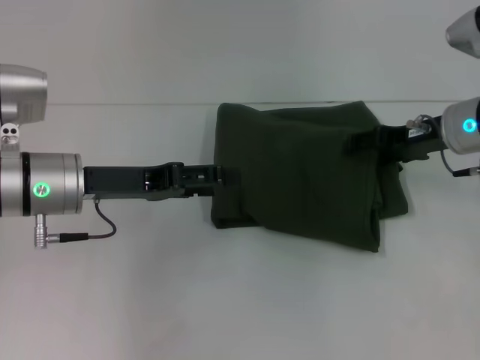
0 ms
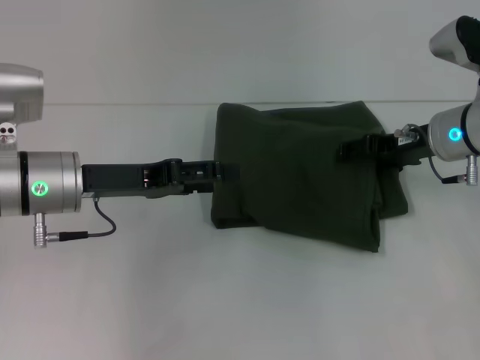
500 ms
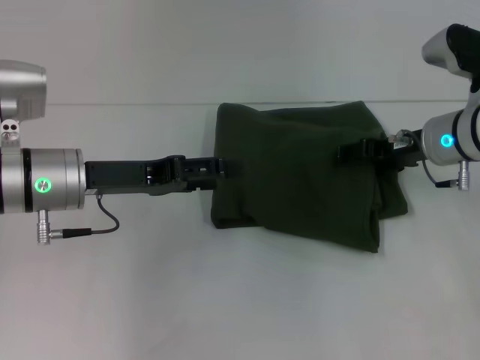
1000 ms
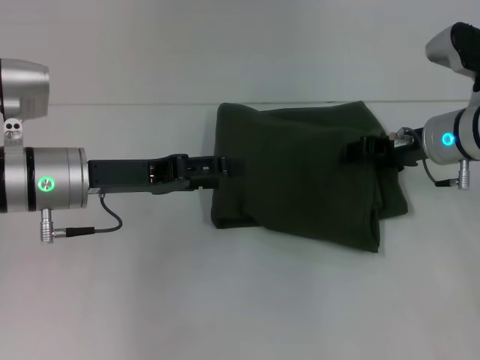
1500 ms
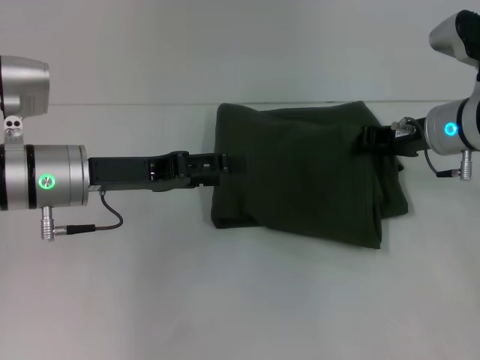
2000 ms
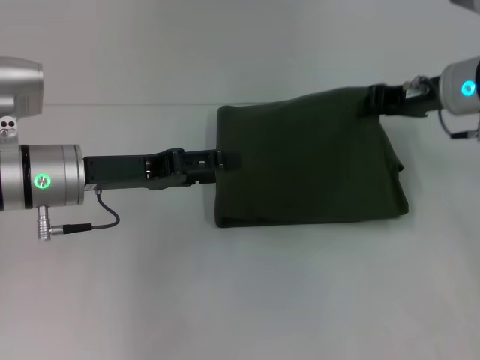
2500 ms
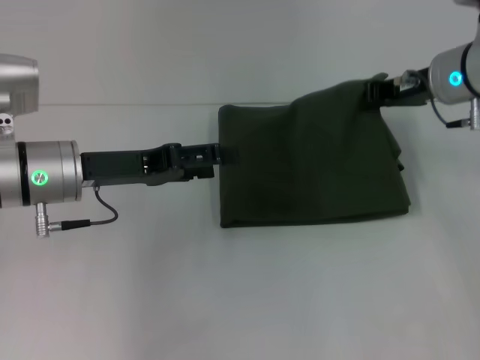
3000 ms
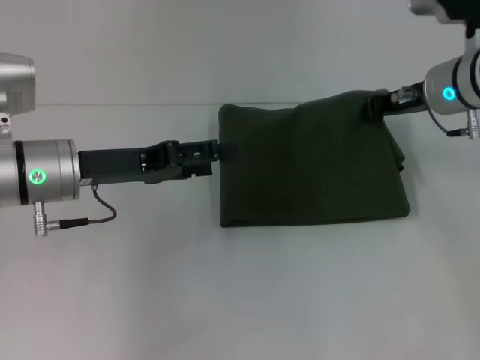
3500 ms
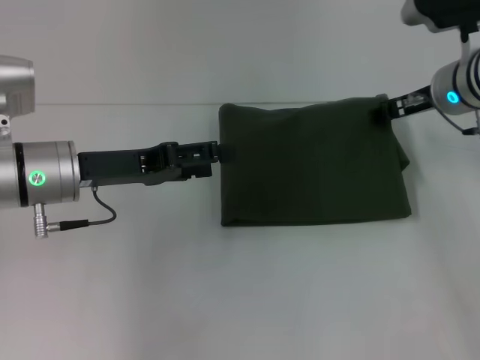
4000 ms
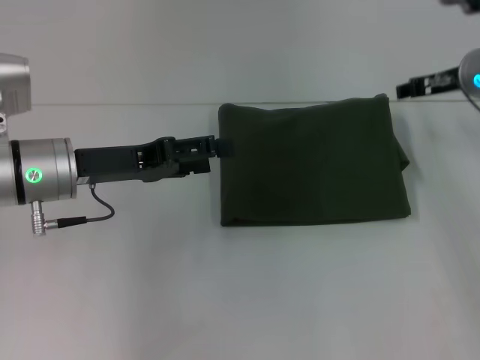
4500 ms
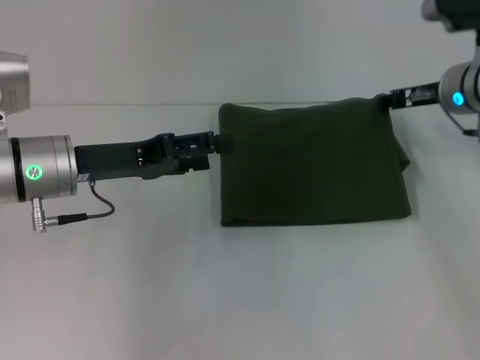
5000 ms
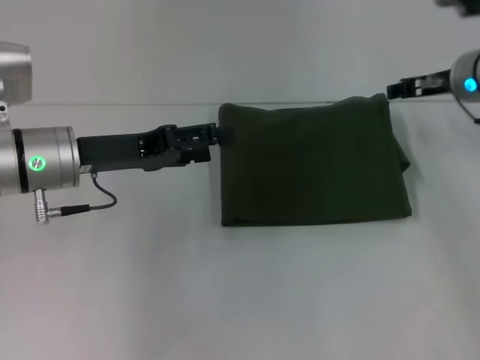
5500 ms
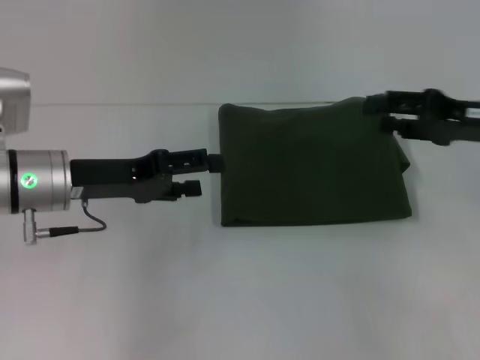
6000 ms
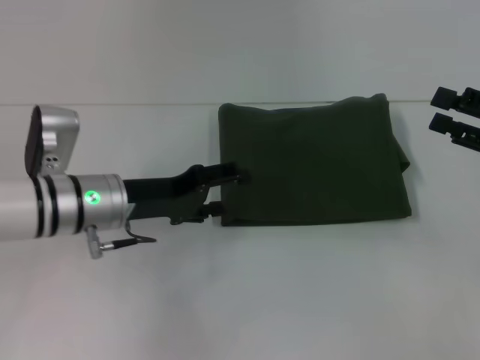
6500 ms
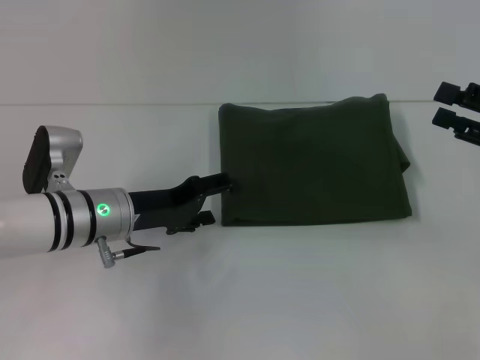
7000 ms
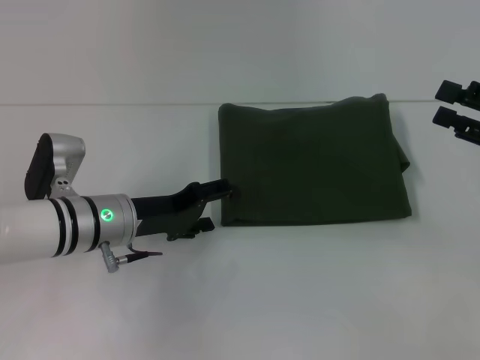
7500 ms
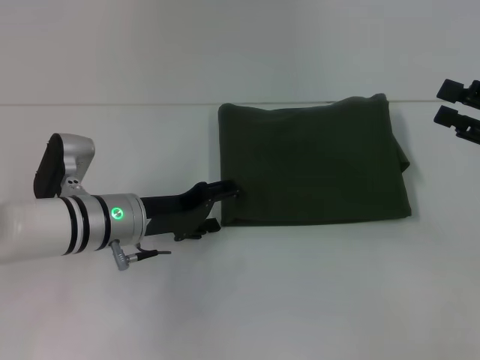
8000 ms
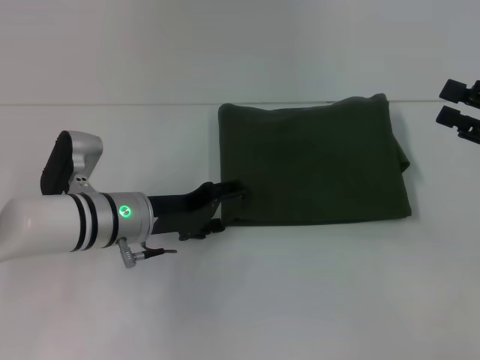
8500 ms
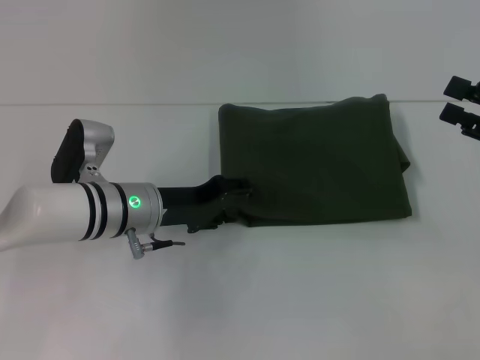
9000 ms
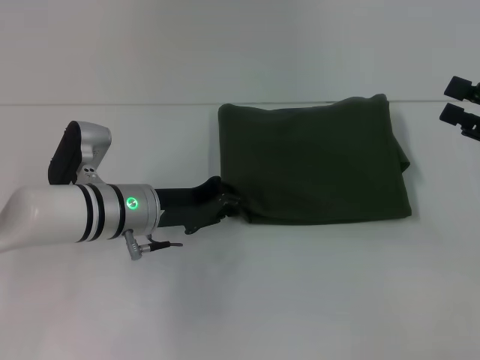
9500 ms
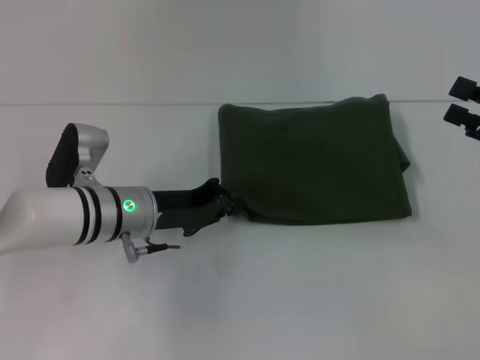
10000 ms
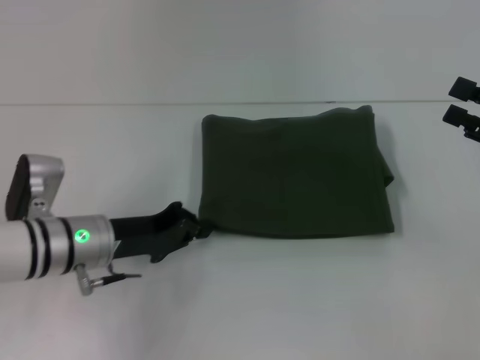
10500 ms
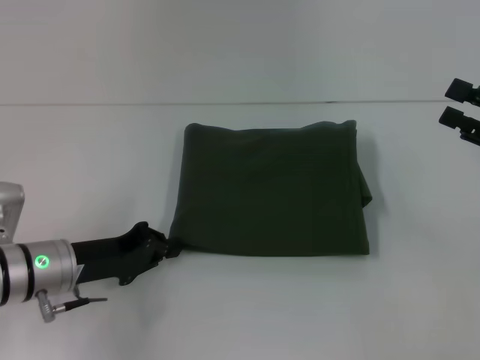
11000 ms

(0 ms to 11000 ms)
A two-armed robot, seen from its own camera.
0 ms - 2000 ms: The right gripper closes.
3500 ms - 5500 ms: The right gripper opens.
5500 ms - 7500 ms: The right gripper is displaced backward and to the right by some 20 cm. Meanwhile the left gripper heads downward, covering approximately 10 cm.
7500 ms - 9000 ms: The grippers make only small movements.
9000 ms - 11000 ms: The left gripper moves to the left and backward, some 10 cm, and closes up.

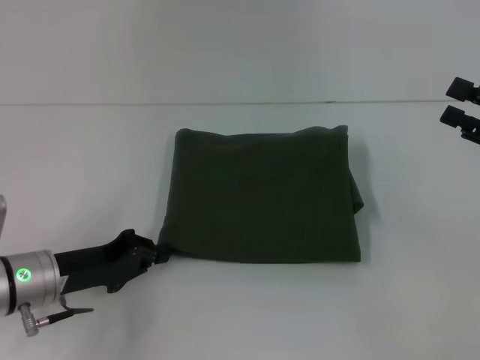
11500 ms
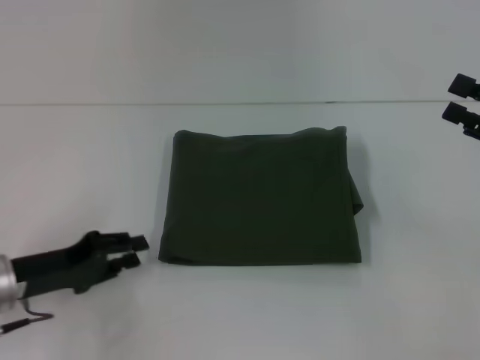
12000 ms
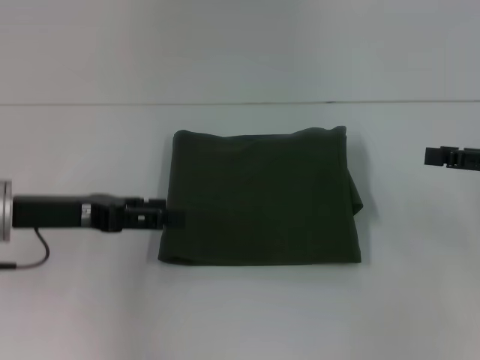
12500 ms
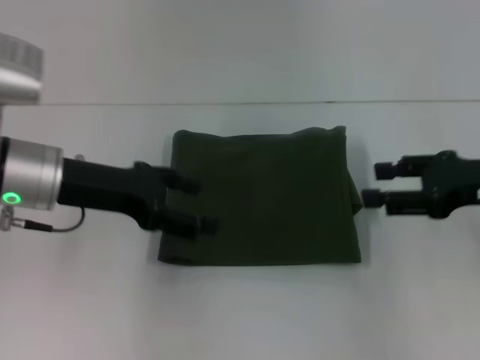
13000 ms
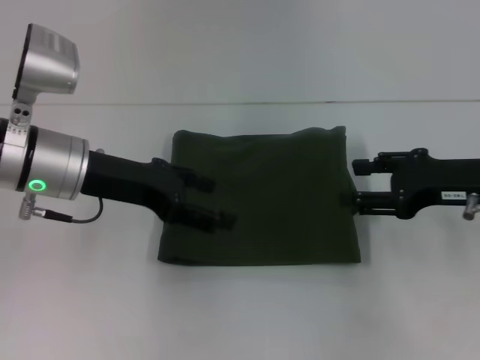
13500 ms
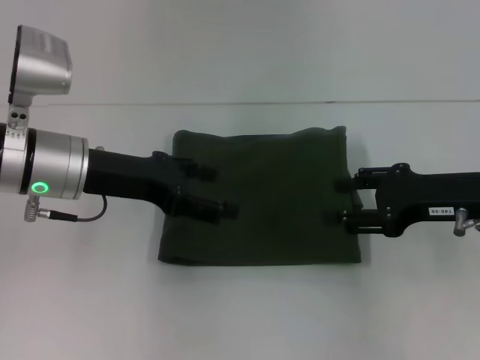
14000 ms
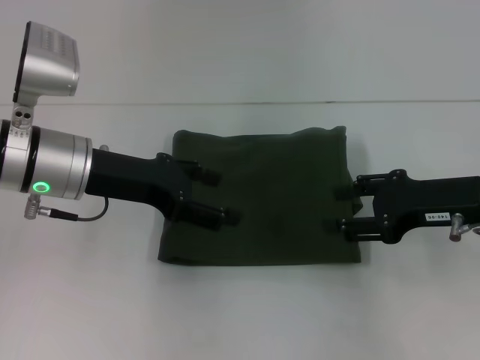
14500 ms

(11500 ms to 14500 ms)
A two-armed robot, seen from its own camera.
11500 ms - 13000 ms: The right gripper goes roughly 5 cm to the left, while the left gripper travels upward and forward by some 15 cm, and opens its fingers.
13000 ms - 14500 ms: The grippers make only small movements.

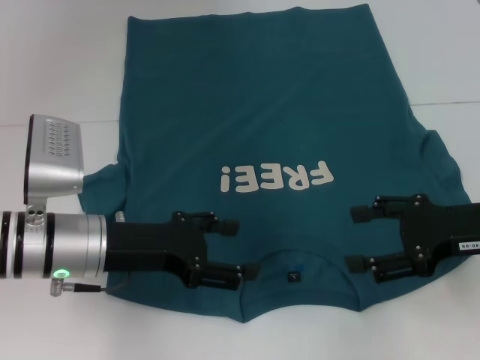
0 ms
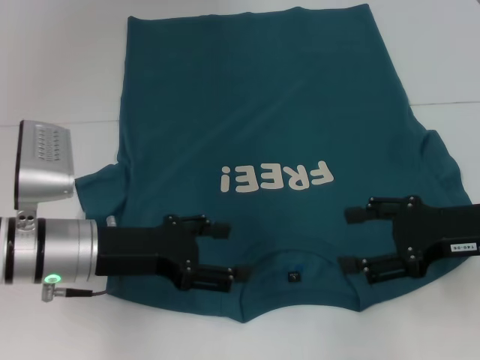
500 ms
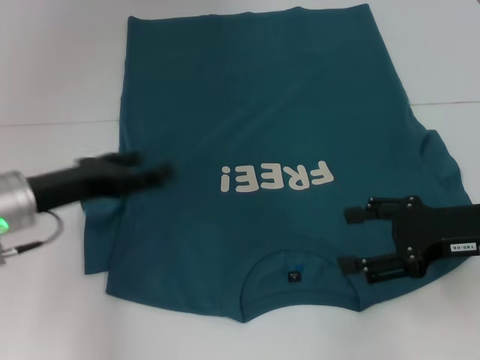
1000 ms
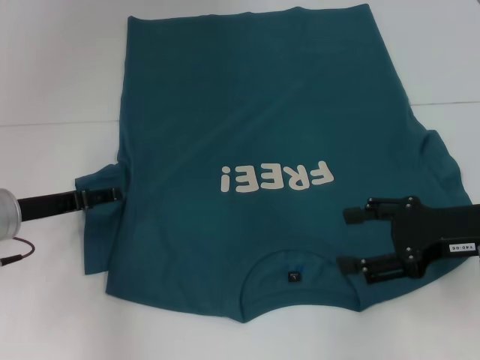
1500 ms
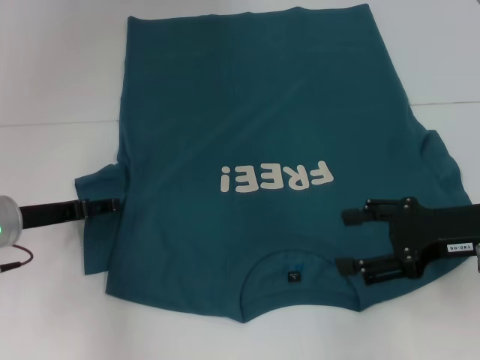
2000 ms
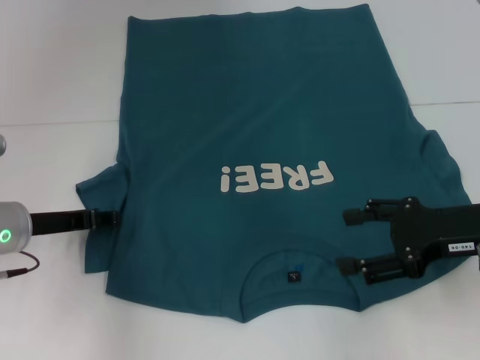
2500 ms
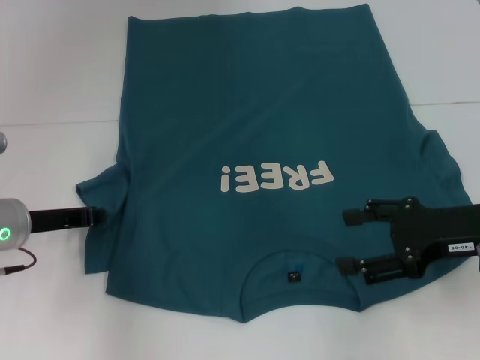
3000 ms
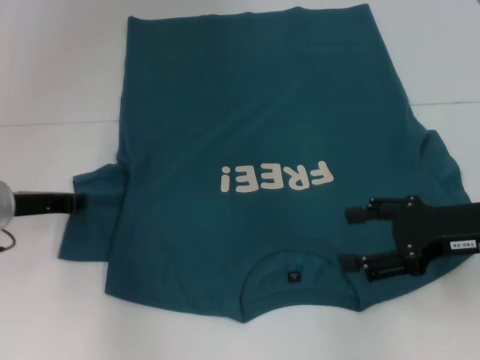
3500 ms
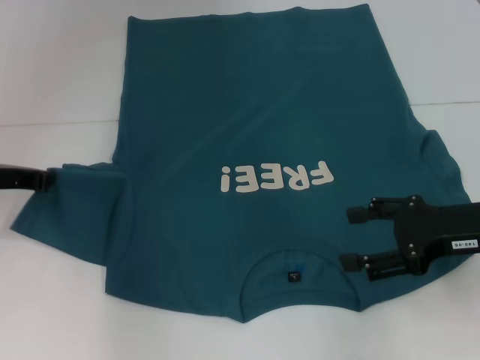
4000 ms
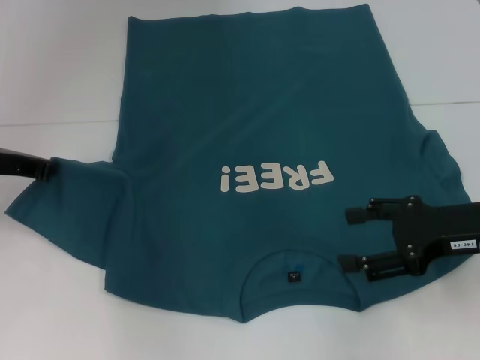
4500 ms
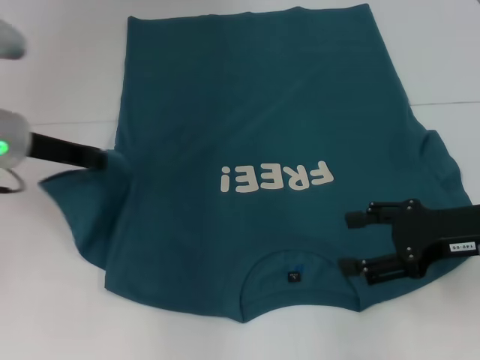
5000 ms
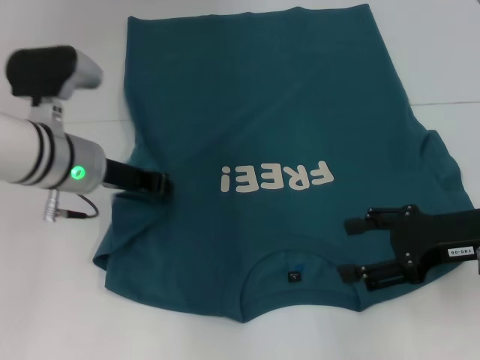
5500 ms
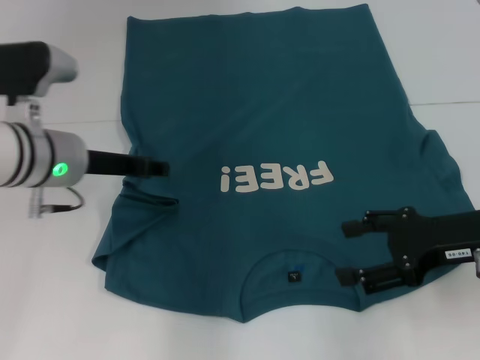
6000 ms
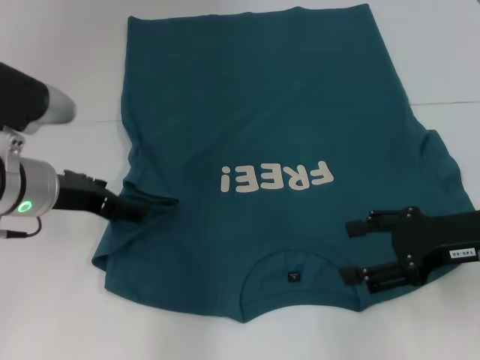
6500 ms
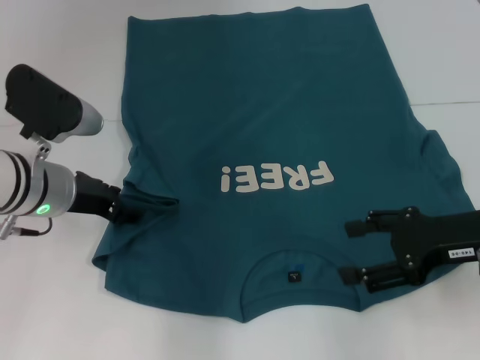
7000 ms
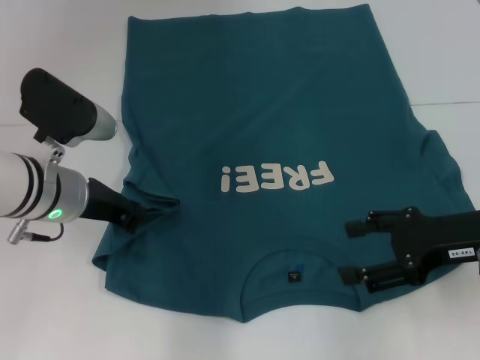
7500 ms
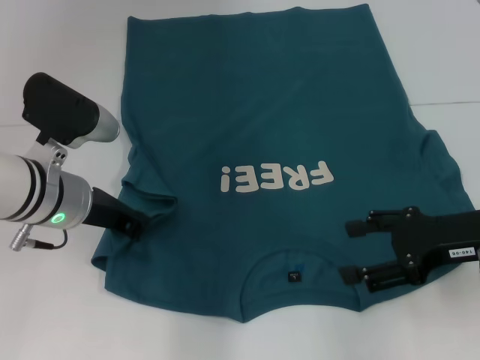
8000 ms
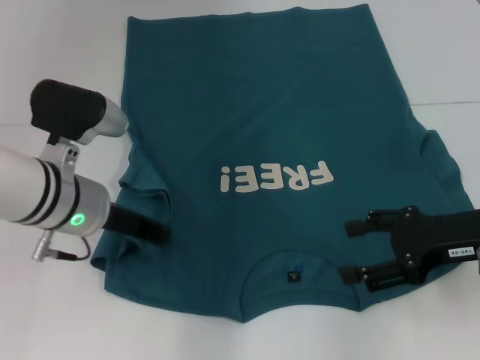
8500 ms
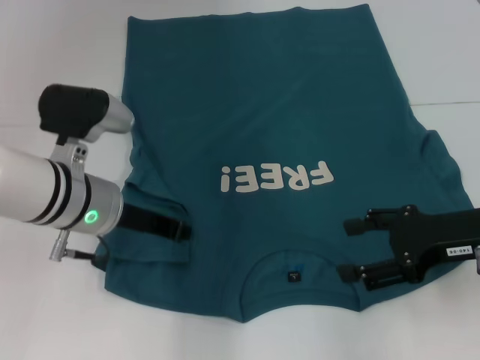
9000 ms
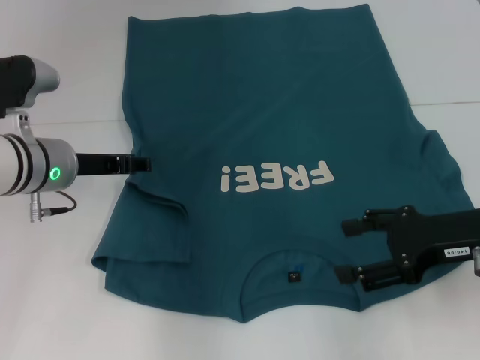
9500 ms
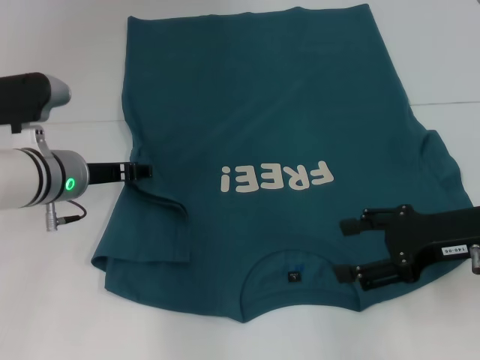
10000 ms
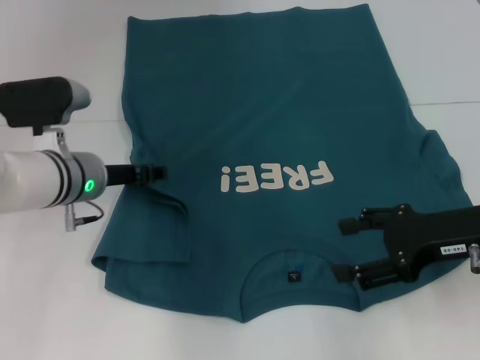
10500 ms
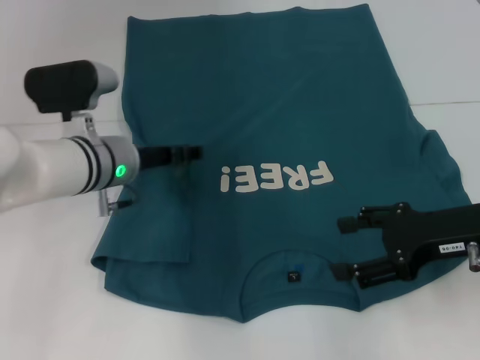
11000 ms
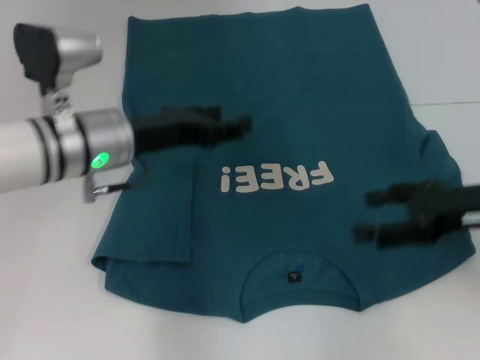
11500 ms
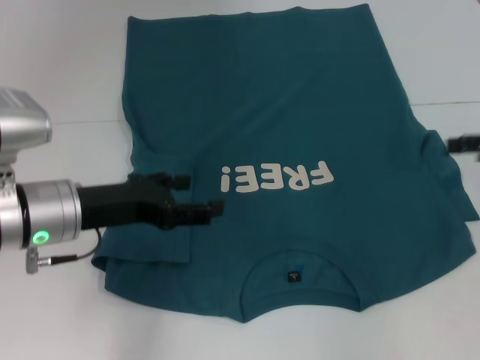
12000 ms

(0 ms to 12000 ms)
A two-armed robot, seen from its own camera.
Step, 0 ms - 11000 ms: Fold the bottom left sleeve with your left hand.
0 ms - 2000 ms: The left gripper moves to the left, approximately 10 cm.
2000 ms - 4000 ms: The left gripper changes place by roughly 5 cm, and closes up.
4000 ms - 6000 ms: The left gripper moves to the right, about 10 cm.
6000 ms - 8000 ms: The left gripper opens, then closes again.
8000 ms - 10000 ms: The left gripper ends up approximately 5 cm from where it was, and opens up.
10000 ms - 12000 ms: The left gripper travels backward by some 5 cm. Meanwhile the right gripper moves to the right and upward, approximately 10 cm.
